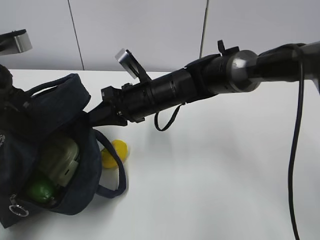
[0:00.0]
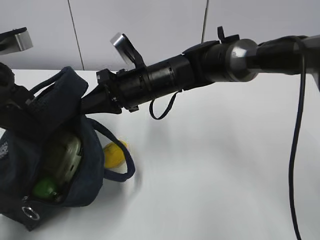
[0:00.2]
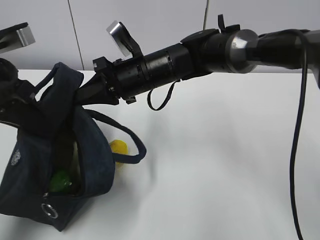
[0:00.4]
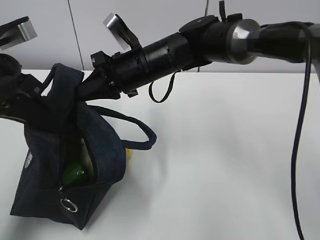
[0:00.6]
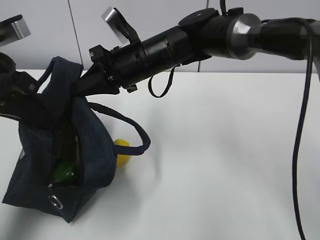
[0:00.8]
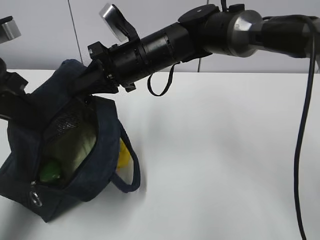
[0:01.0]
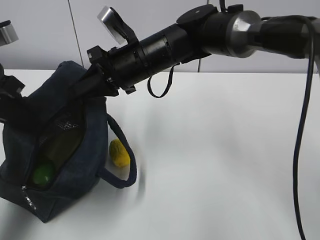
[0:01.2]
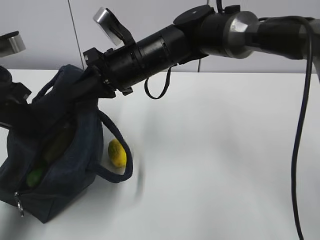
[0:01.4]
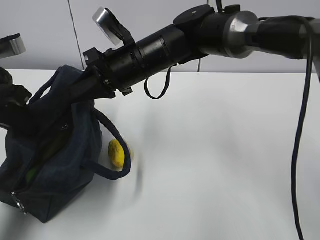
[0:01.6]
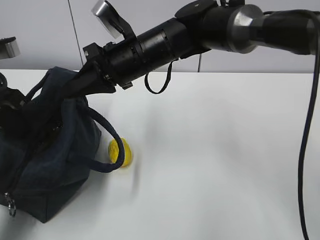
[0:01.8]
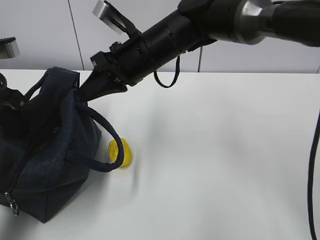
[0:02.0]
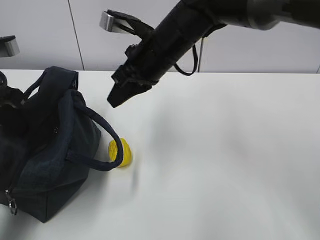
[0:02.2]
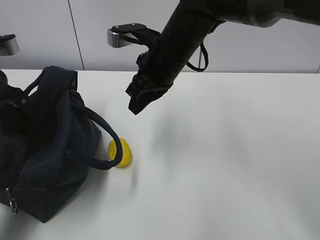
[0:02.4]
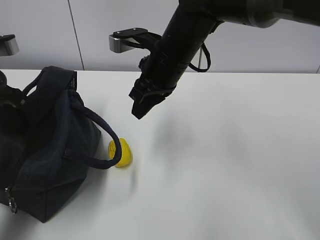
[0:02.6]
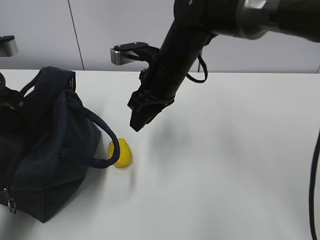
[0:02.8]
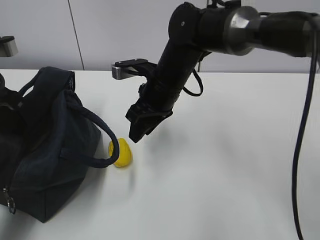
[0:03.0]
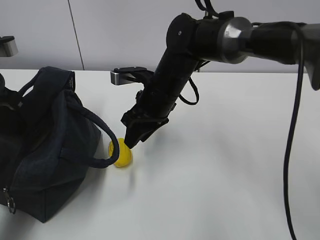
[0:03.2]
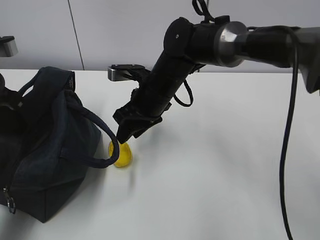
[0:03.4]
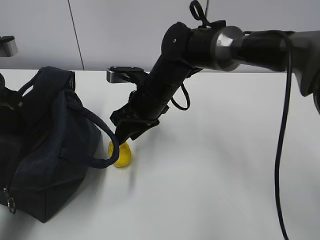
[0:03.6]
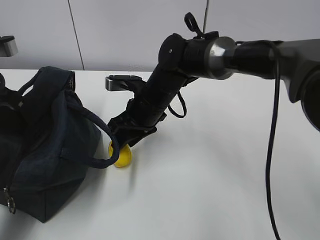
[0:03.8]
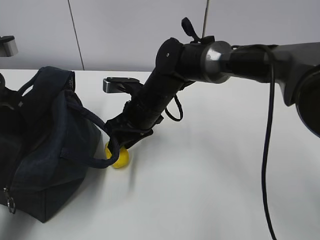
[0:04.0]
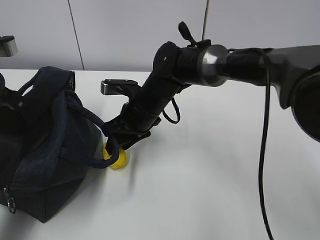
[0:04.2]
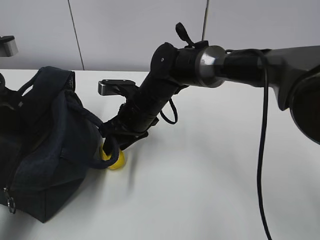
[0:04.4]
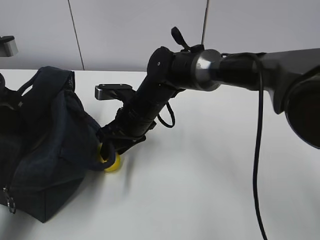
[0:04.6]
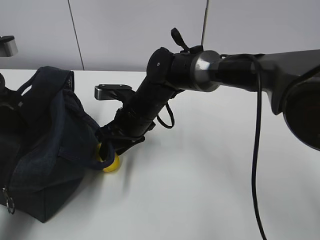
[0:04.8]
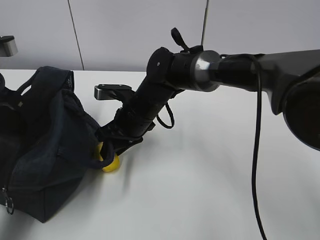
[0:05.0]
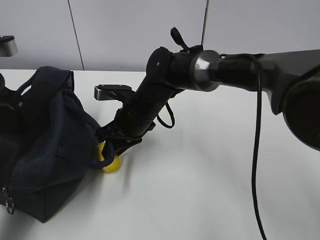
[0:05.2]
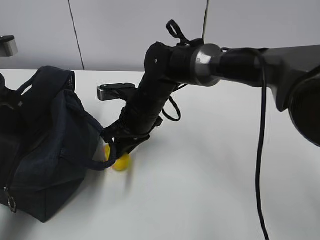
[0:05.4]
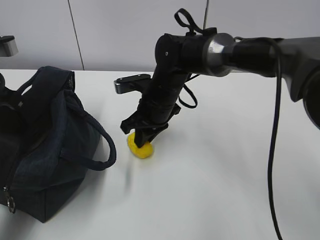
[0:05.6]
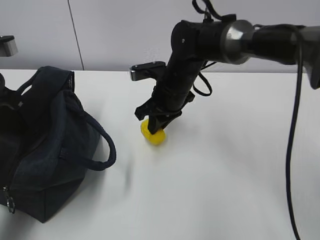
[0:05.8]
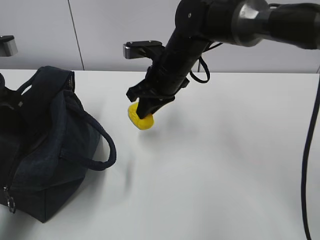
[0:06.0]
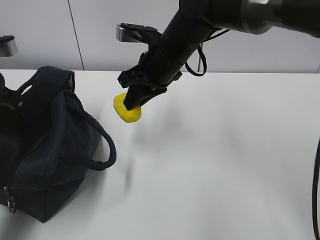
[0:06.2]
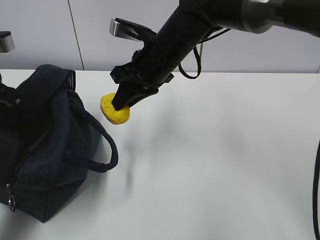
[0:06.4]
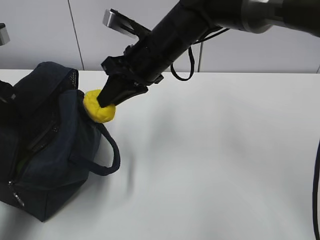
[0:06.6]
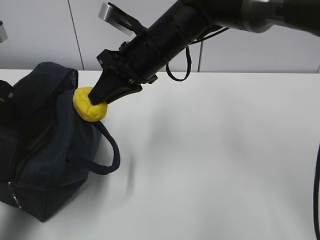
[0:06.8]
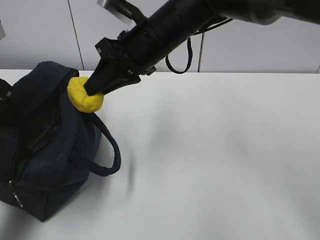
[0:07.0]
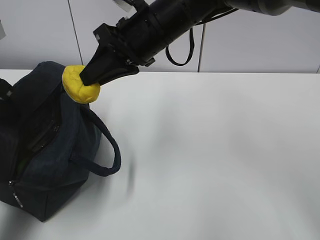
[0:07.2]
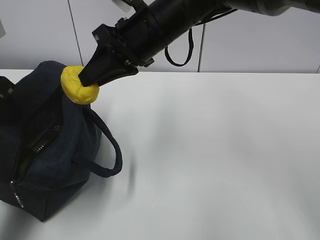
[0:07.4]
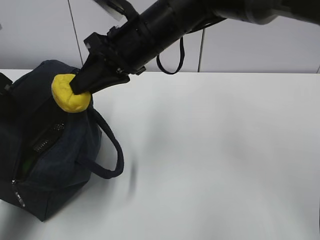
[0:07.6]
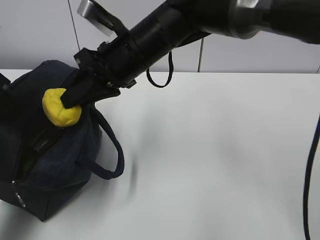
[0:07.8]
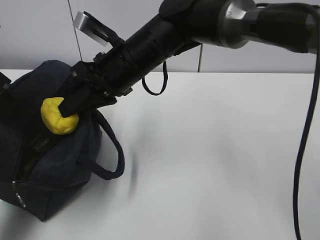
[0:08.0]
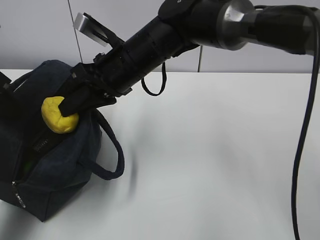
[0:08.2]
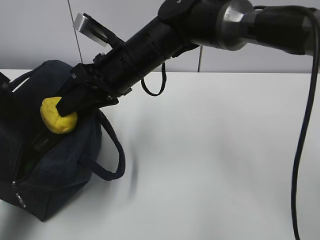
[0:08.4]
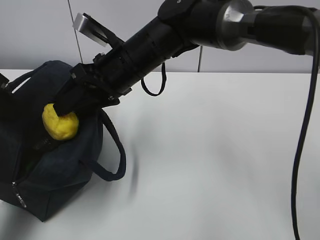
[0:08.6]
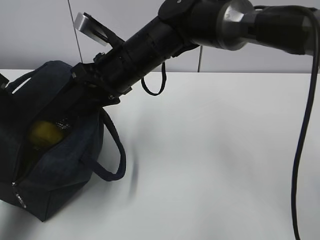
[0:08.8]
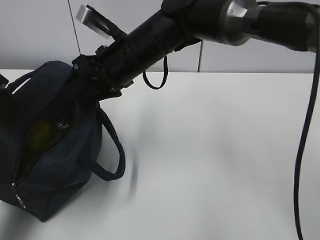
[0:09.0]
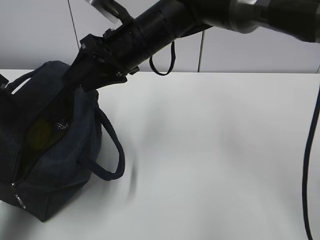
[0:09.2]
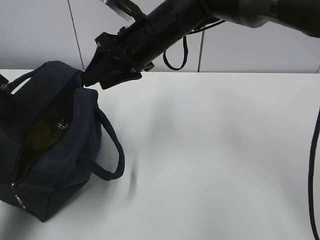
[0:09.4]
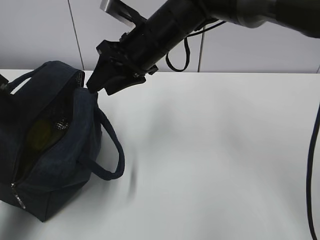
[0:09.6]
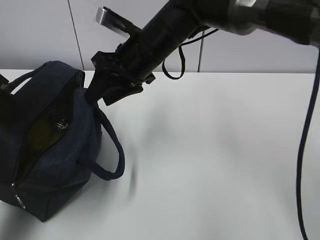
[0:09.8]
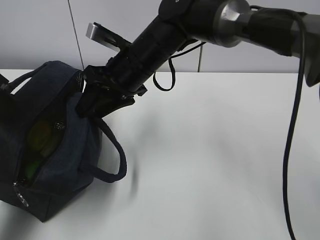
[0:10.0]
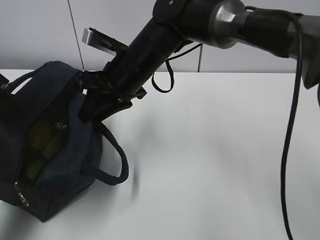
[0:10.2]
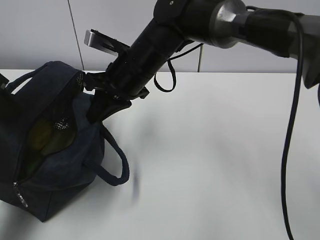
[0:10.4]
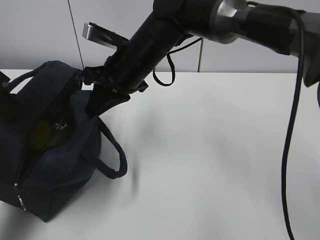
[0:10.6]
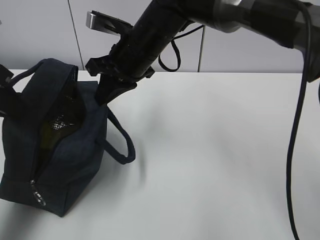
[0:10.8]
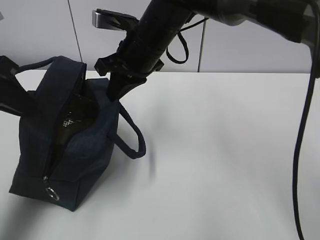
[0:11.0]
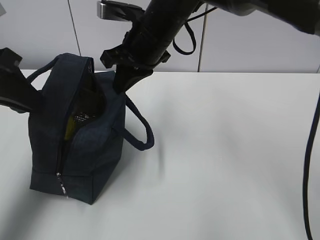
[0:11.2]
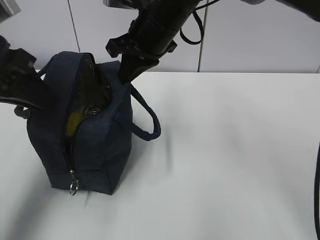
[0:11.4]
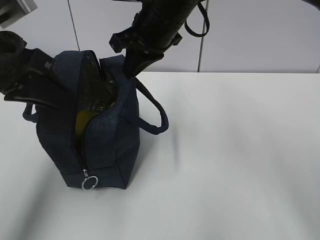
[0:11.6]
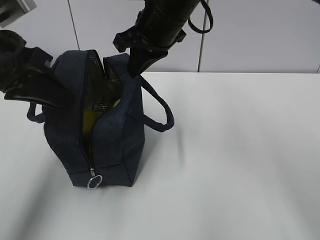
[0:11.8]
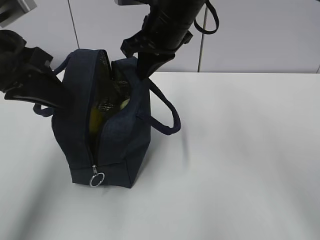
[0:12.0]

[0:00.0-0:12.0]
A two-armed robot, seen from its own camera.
Step, 0:00.8 to 0:03.4: Secure the lunch bag with your left hand.
Step, 0:03.6 to 0:04.6: Grab the lunch bag with your right hand.
Step, 0:04.8 to 0:07.4: Move the lunch bag to the right.
0:00.0 to 0:01.6: The right gripper travels upward by about 5 cm.
0:01.6 to 0:03.0: The right gripper changes place by approximately 5 cm, and opens its fingers.
0:03.0 to 0:04.4: The right gripper goes roughly 5 cm downward.
0:04.4 to 0:06.0: The right gripper is displaced upward and to the right by roughly 10 cm, and closes up.
0:06.0 to 0:07.6: The right gripper shifts roughly 10 cm upward.
0:07.6 to 0:09.0: The right gripper opens up.
0:09.0 to 0:10.4: The right gripper closes up.
0:10.4 to 0:12.0: The right gripper shifts some 10 cm upward and to the right, while the left gripper moves to the right, approximately 5 cm.

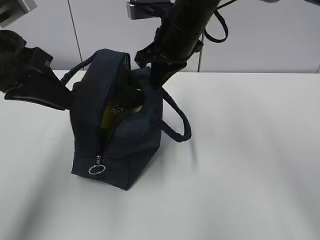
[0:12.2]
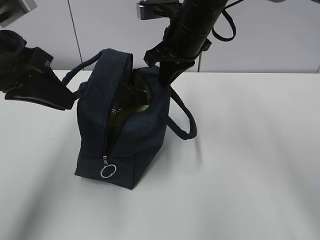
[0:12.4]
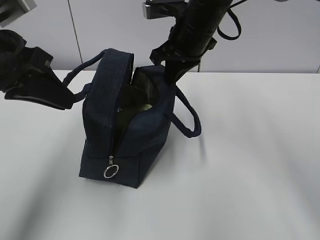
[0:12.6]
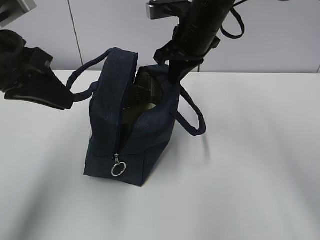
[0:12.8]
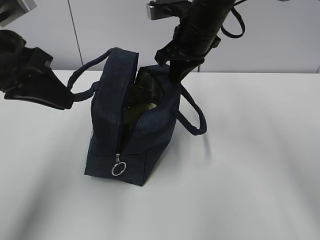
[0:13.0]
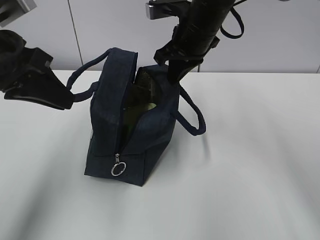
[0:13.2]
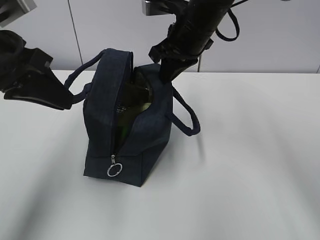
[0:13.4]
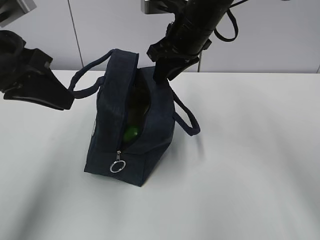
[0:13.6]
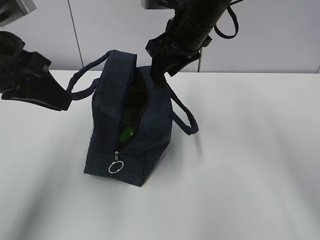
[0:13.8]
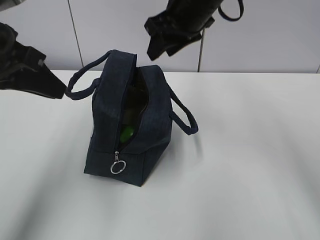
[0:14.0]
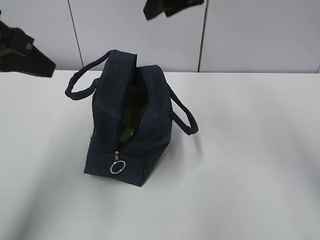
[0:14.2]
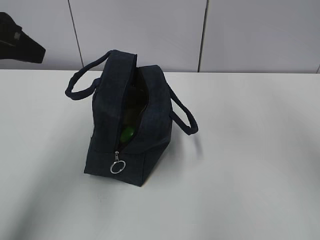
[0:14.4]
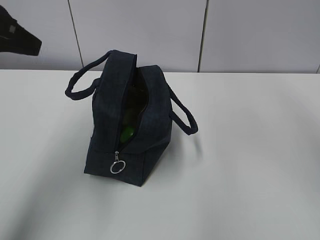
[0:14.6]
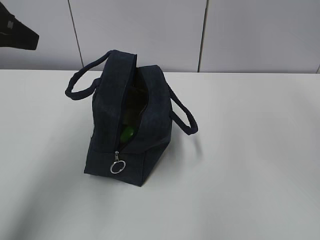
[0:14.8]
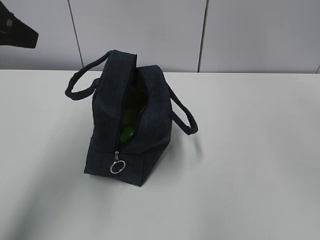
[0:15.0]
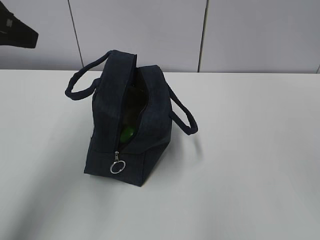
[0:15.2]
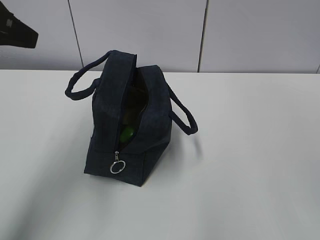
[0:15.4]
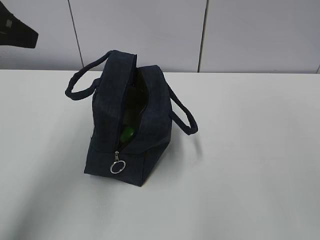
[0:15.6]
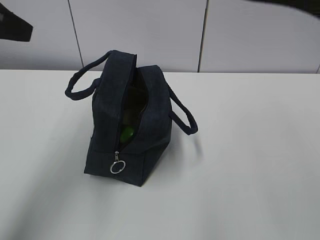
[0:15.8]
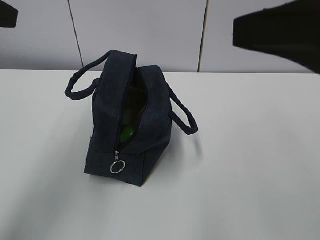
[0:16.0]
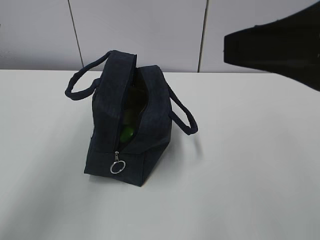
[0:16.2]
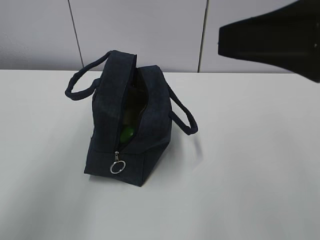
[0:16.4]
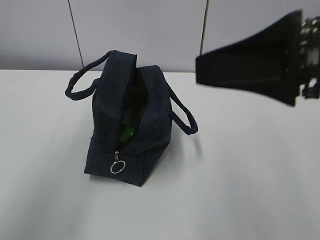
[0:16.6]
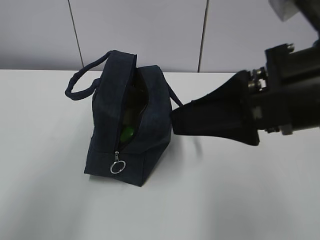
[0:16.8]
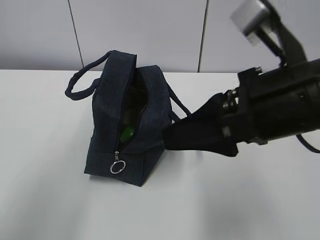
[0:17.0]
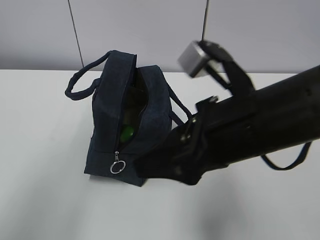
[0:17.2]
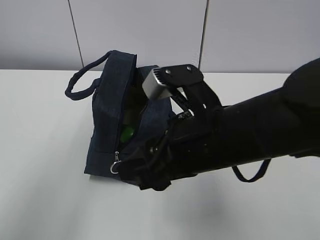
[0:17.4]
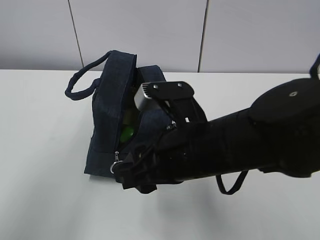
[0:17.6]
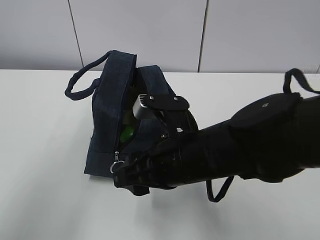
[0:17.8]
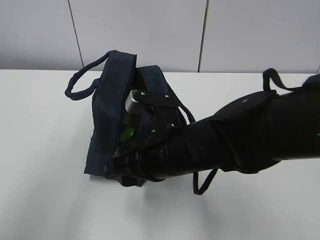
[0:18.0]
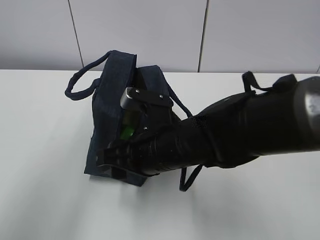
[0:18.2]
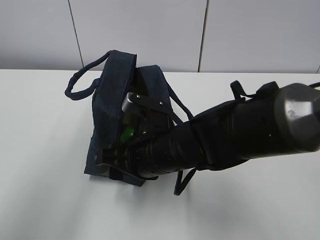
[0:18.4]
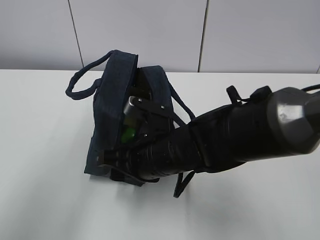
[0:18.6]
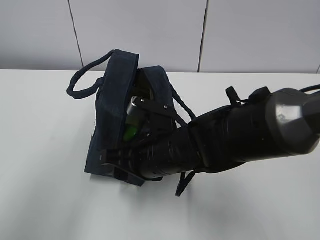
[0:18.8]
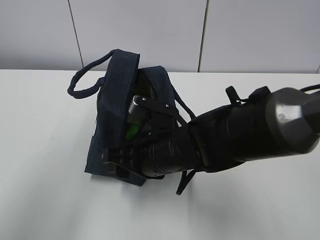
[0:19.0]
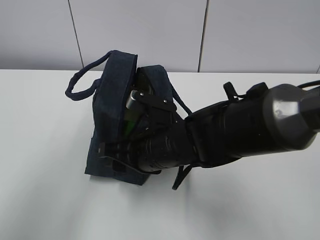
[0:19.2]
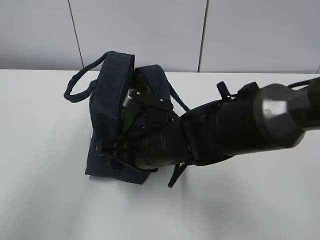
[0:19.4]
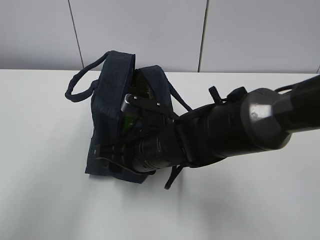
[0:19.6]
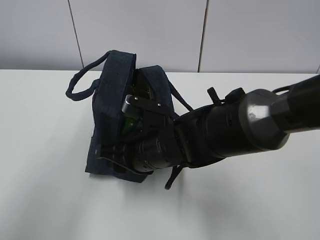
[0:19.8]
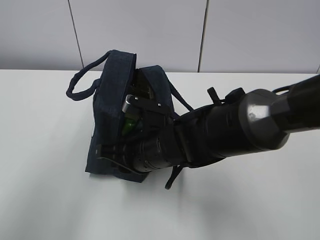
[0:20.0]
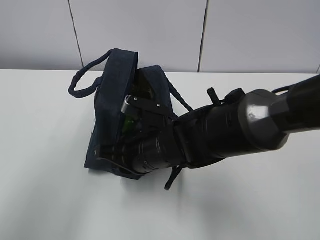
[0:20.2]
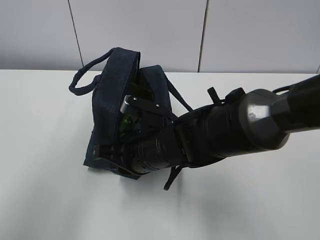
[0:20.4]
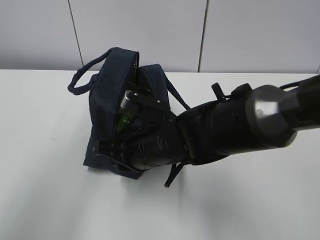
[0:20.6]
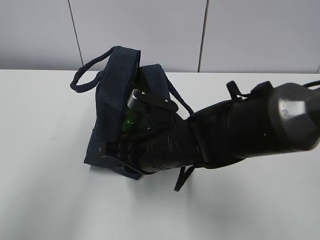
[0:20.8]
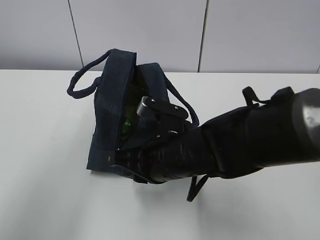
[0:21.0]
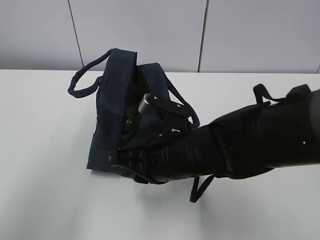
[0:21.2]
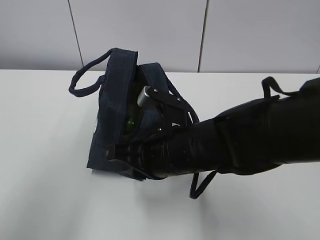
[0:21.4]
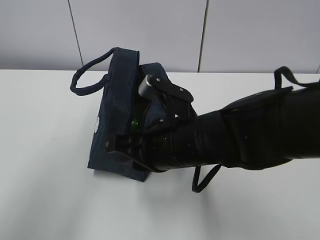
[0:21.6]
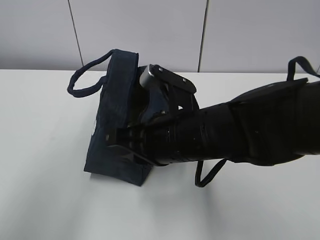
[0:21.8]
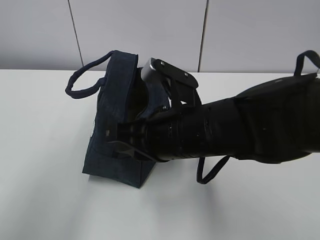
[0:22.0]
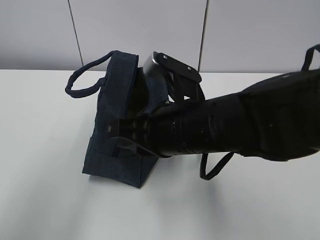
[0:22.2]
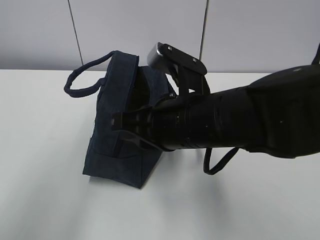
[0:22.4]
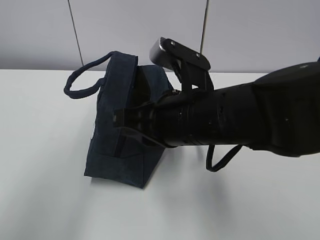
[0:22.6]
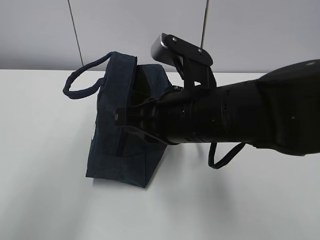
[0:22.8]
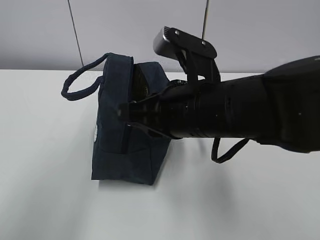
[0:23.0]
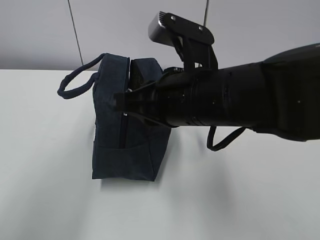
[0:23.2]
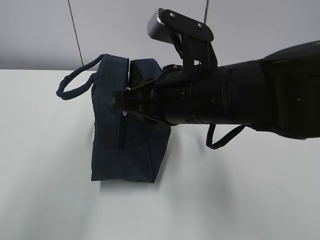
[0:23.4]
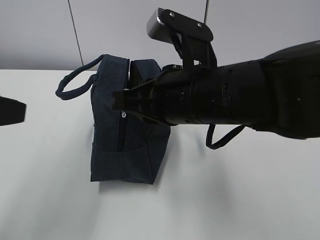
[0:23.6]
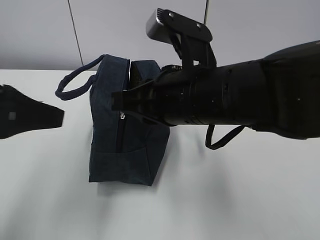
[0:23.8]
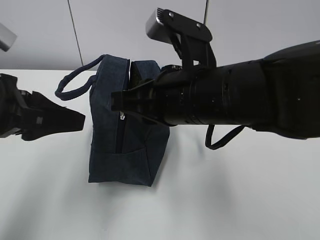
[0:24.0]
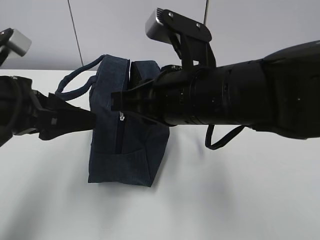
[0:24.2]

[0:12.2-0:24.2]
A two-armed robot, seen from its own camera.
0:12.2 to 0:13.8: The right gripper opens up.
0:13.8 to 0:15.2: The right gripper shifts some 30 cm upward and backward. The left gripper heads upward, covering approximately 5 cm.
0:15.2 to 0:16.6: The left gripper travels backward by approximately 10 cm, while the right gripper is displaced downward and backward by about 20 cm.
0:16.6 to 0:18.2: The right gripper moves downward, to the left and forward, about 25 cm.
0:18.2 to 0:19.8: The right gripper moves some 5 cm.
0:19.8 to 0:21.2: The right gripper shifts by approximately 5 cm, and closes its fingers.
0:21.2 to 0:22.6: The right gripper shifts about 10 cm upward.
0:22.6 to 0:24.2: The left gripper moves downward, forward and to the right, about 15 cm, and opens up.
